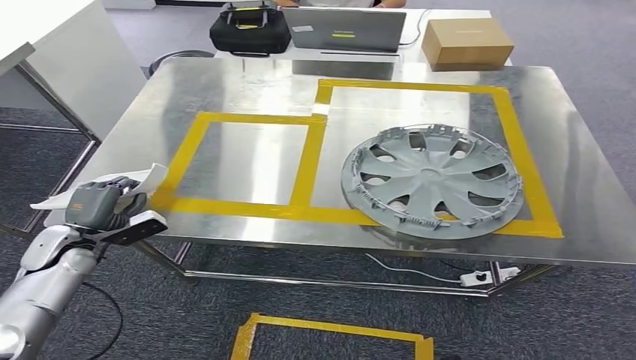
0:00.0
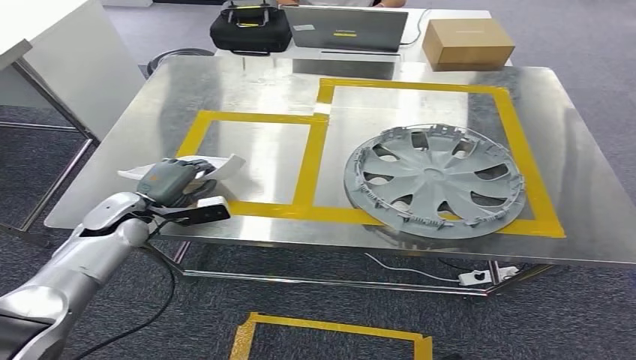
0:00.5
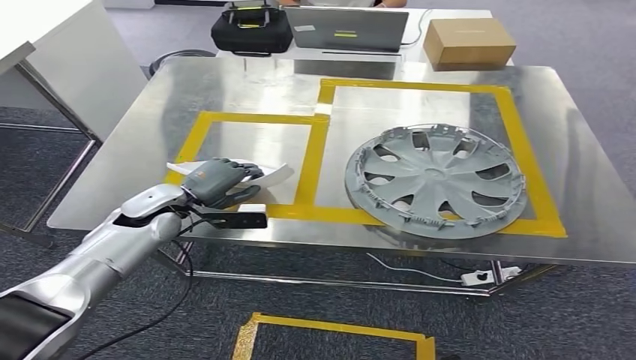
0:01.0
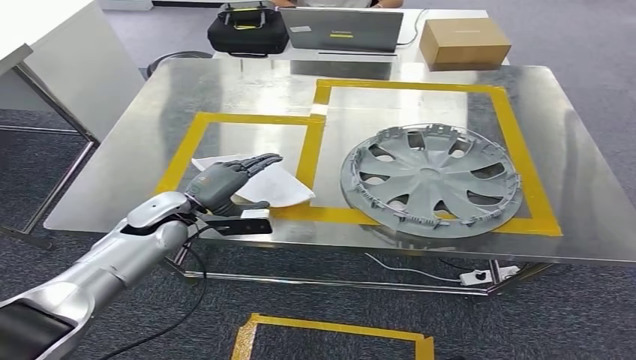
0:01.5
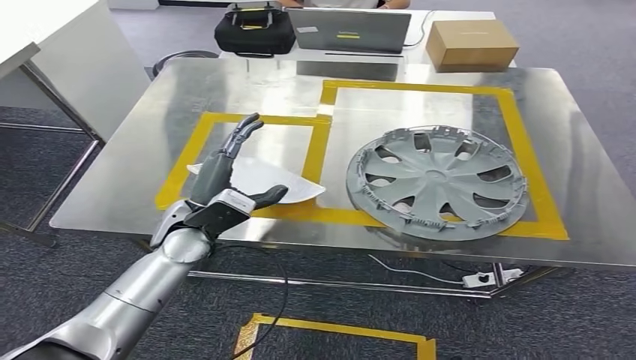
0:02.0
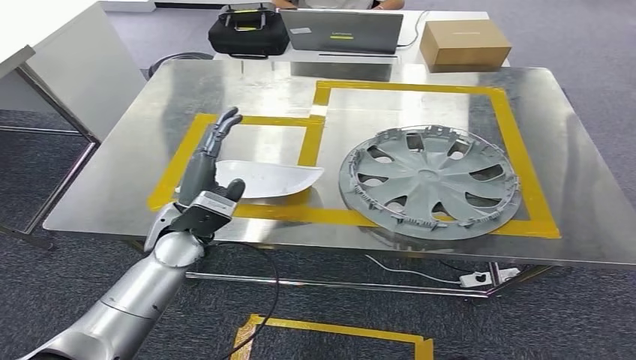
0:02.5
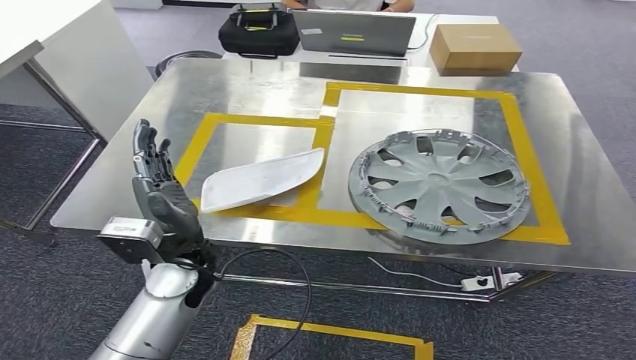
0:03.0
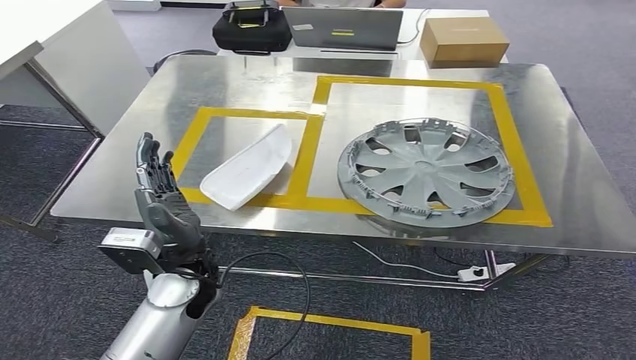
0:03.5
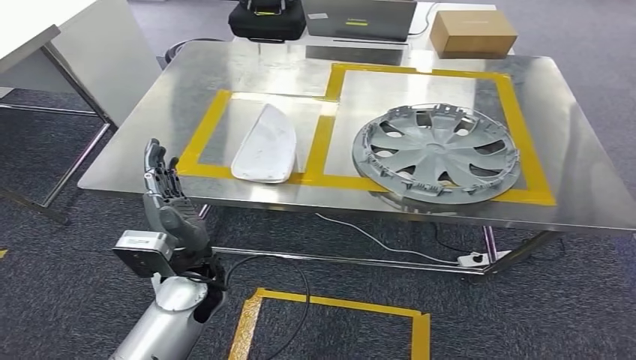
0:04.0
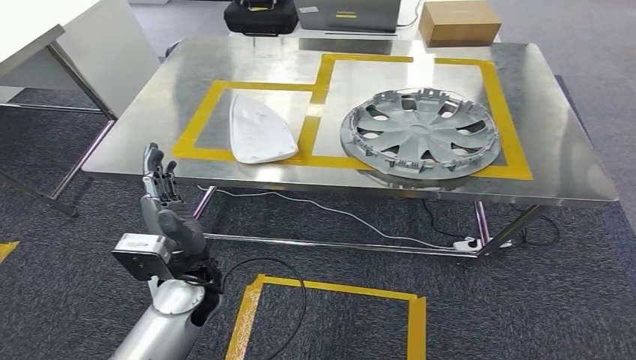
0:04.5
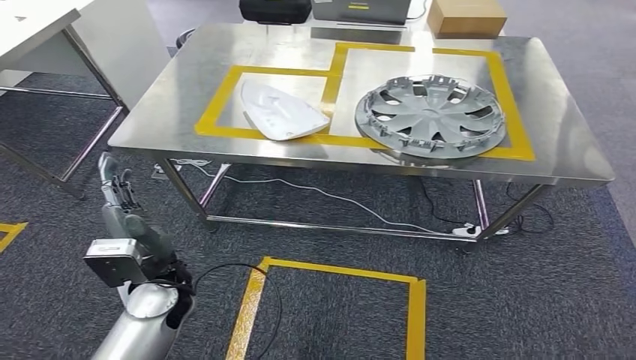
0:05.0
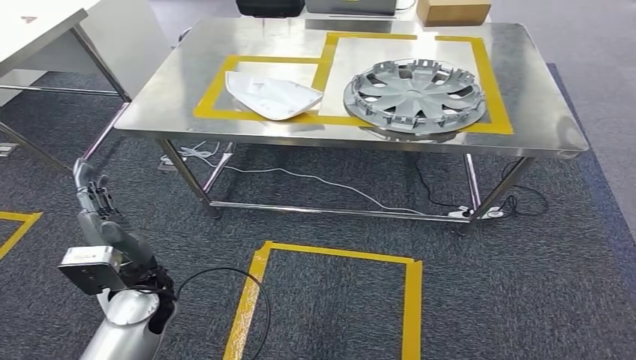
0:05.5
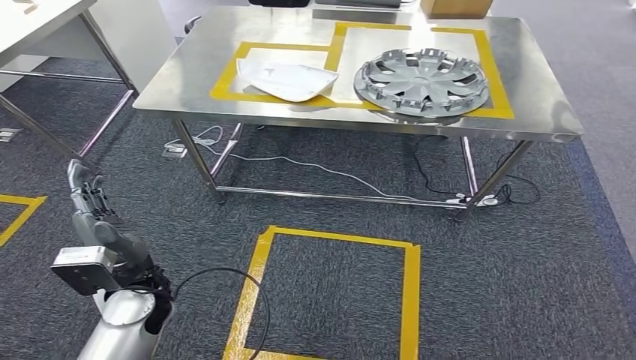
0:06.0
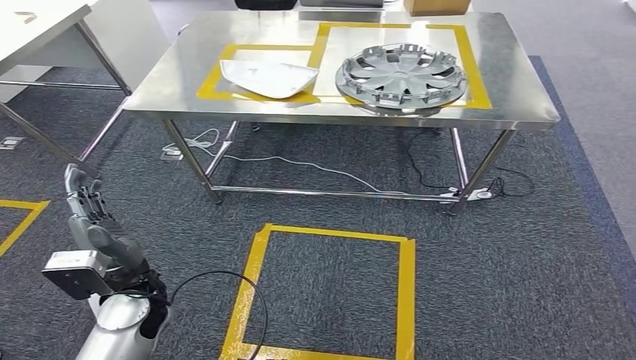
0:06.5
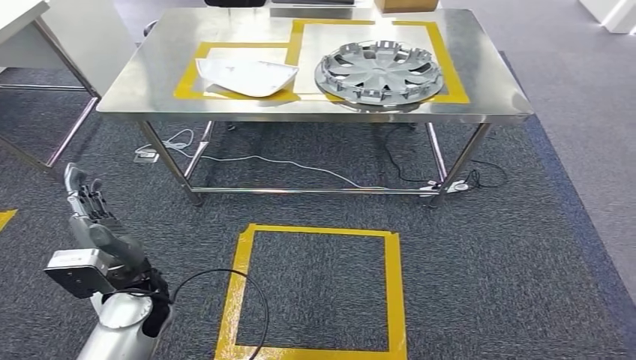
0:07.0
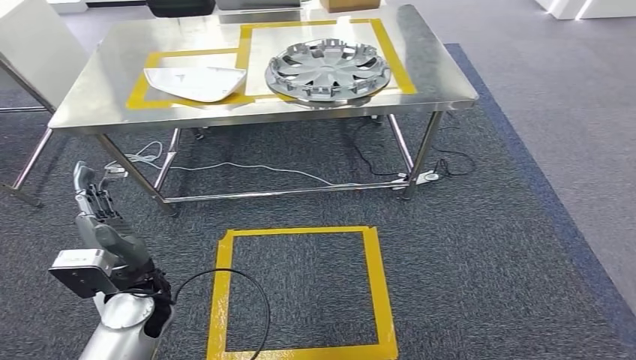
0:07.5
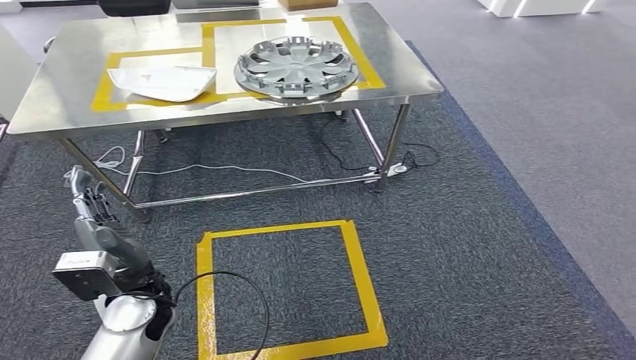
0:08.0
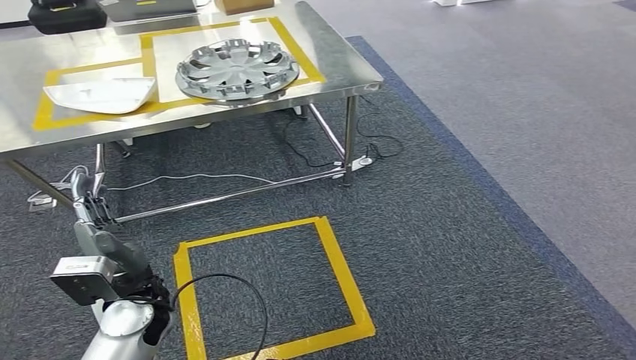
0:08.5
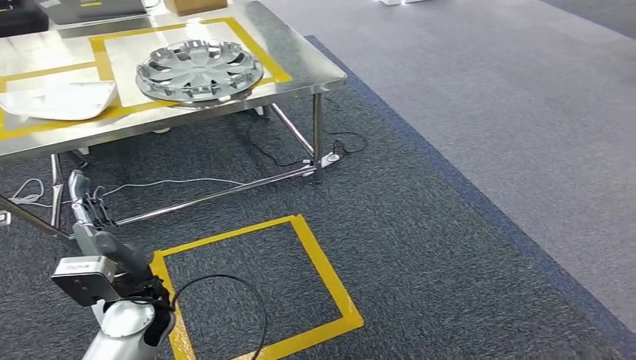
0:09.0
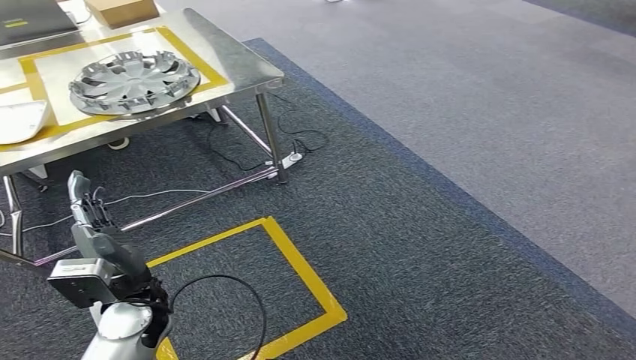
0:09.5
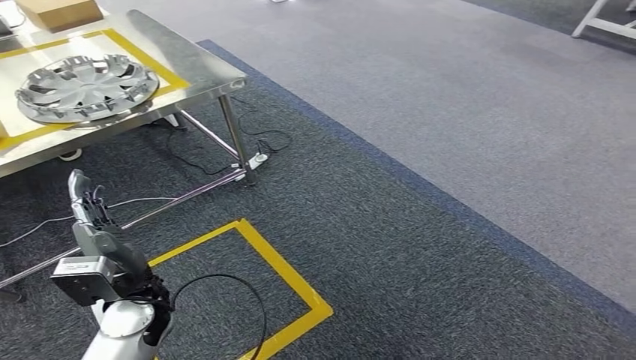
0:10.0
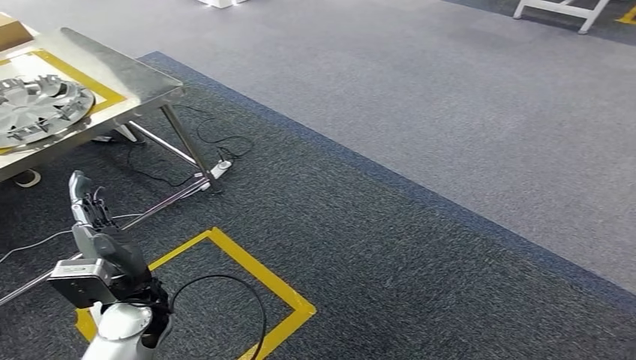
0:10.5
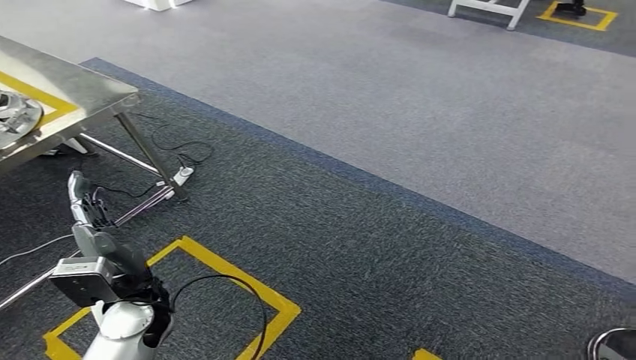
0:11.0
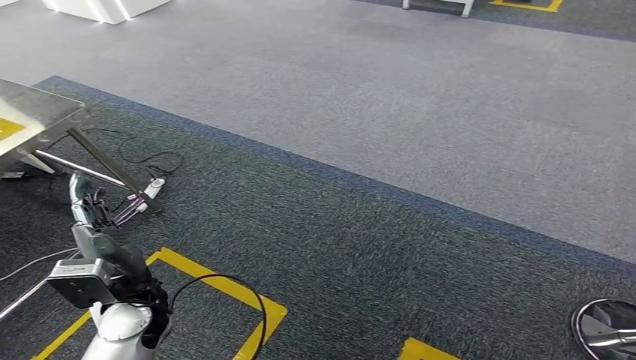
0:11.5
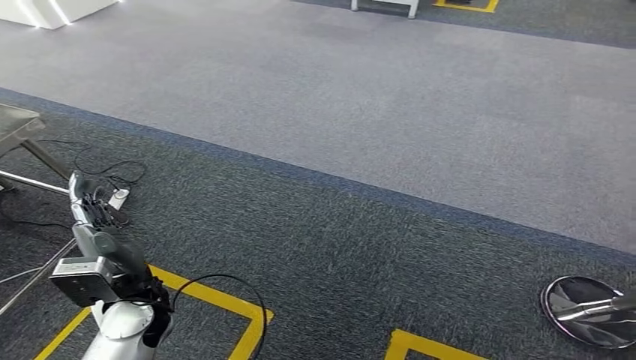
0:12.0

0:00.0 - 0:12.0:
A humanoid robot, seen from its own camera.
Step, 0:00.0 - 0:04.0: Insert the small component into the corresponding slot on the workbench.

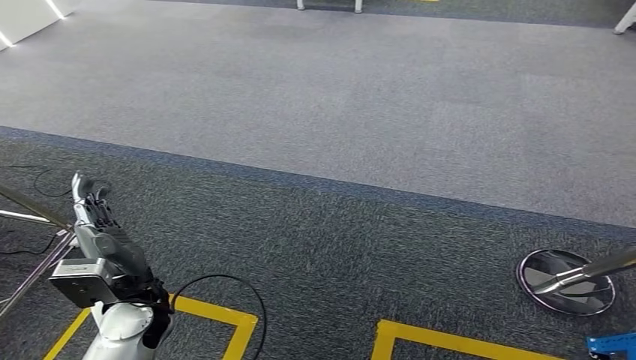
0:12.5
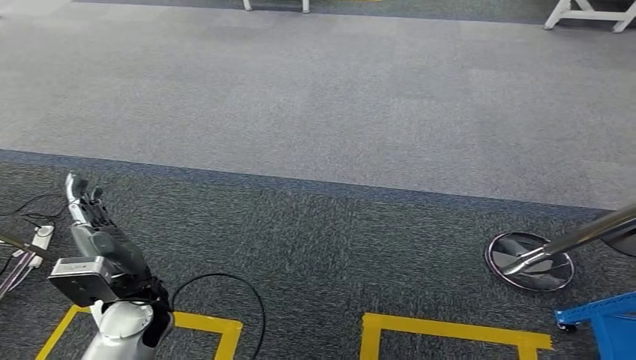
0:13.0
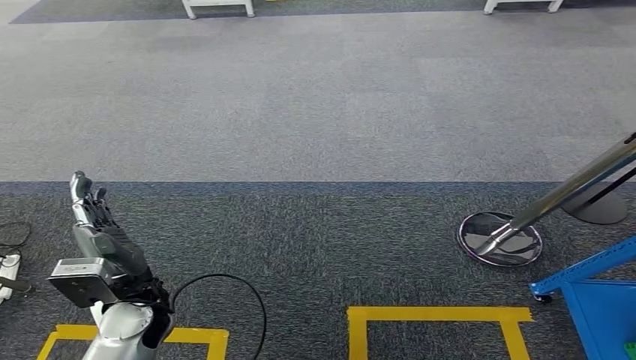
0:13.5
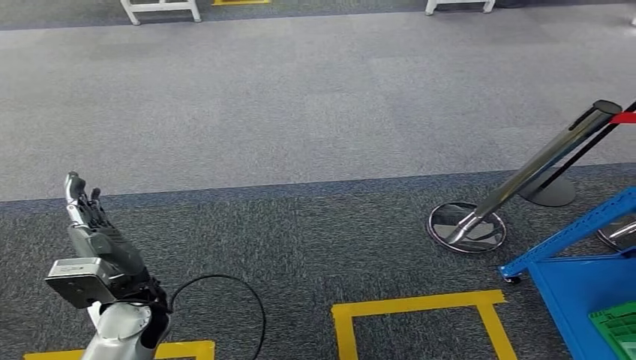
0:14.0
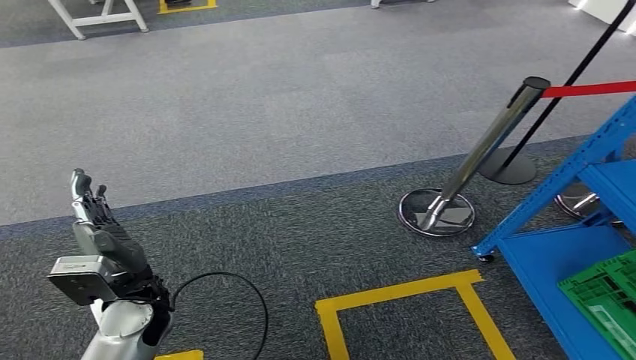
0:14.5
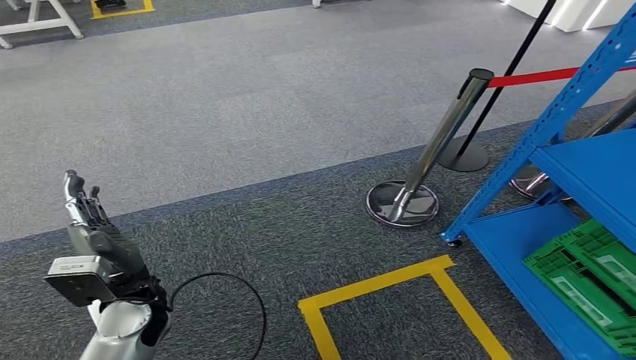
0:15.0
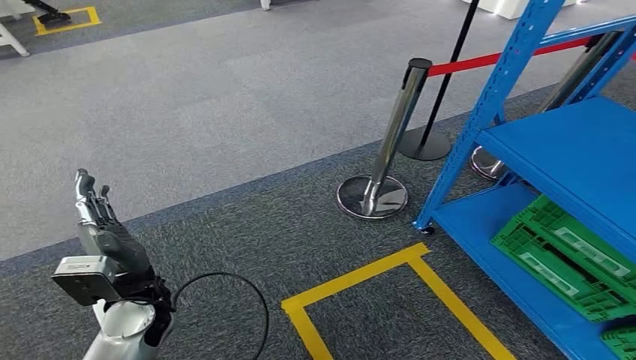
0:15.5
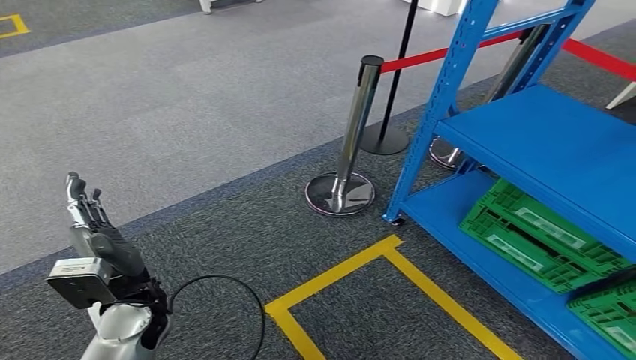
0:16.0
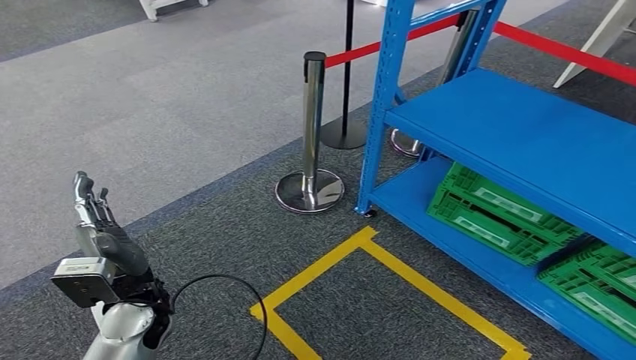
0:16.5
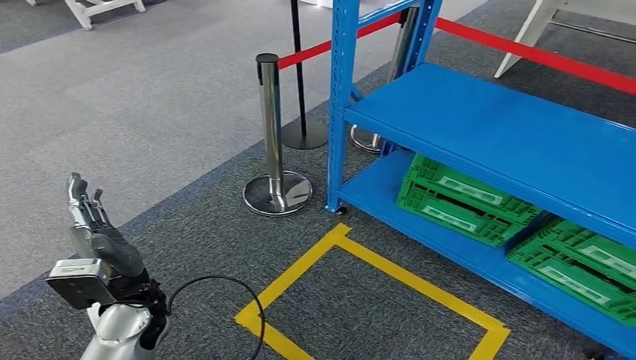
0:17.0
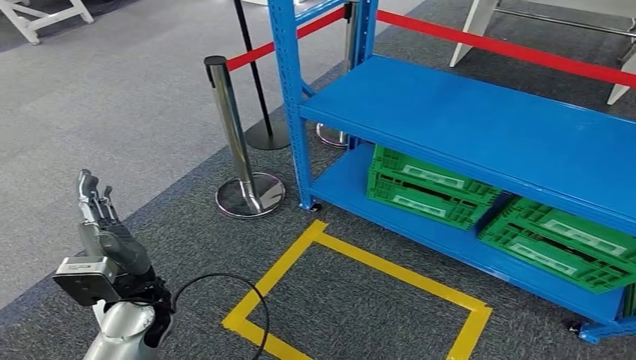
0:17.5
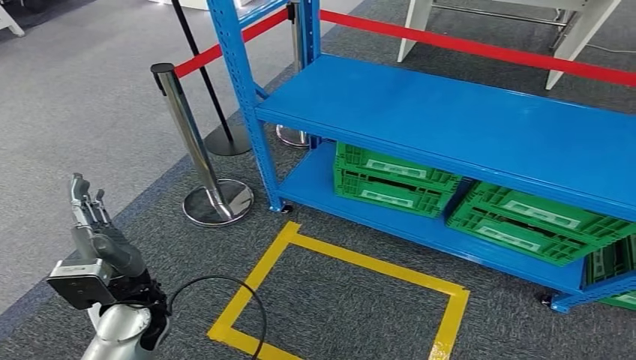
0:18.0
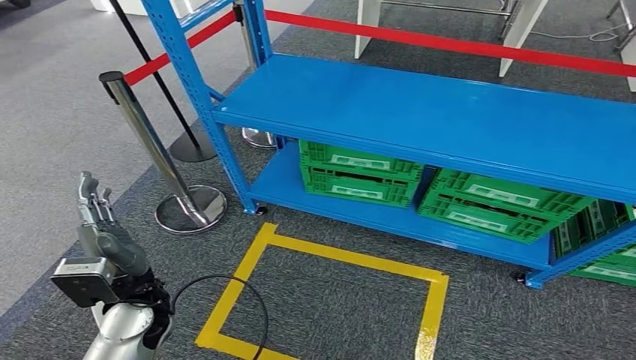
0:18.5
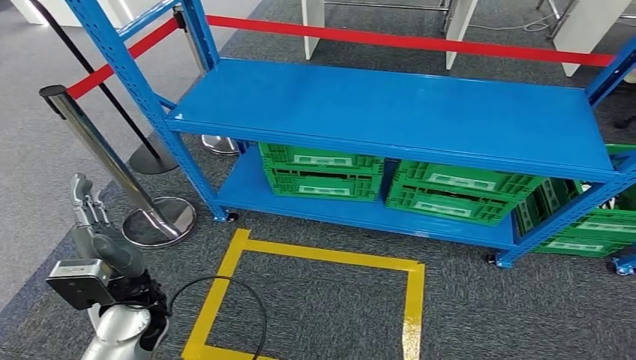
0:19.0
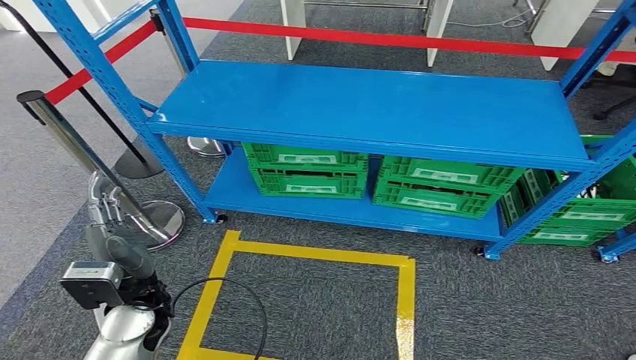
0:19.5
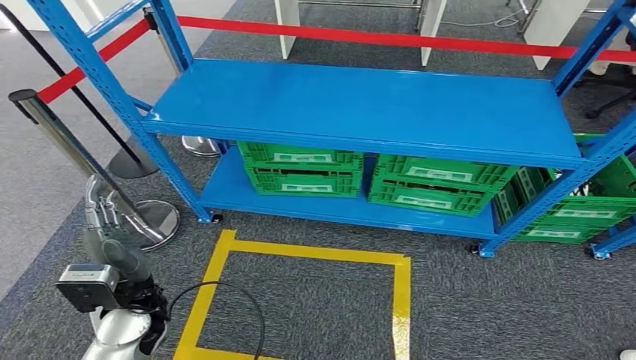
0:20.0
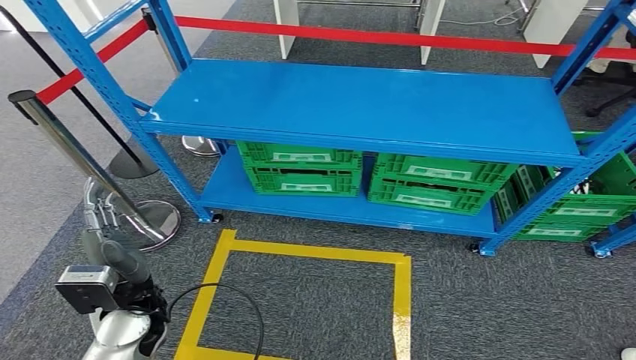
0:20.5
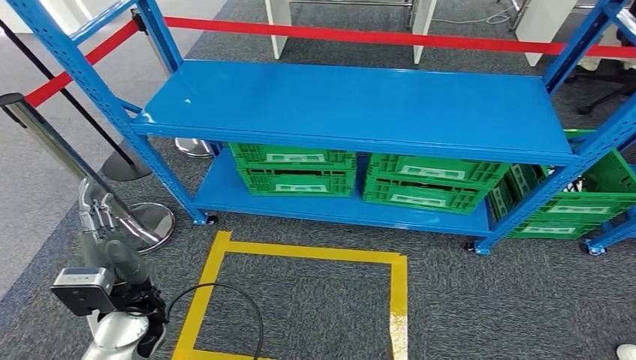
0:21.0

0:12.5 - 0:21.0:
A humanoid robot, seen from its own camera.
Step, 0:12.5 - 0:21.0: Return to the initial position at the workbench.
